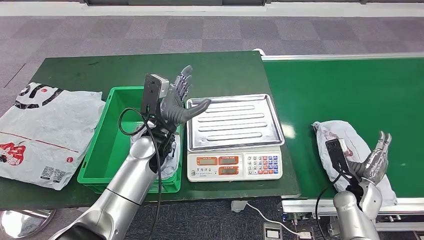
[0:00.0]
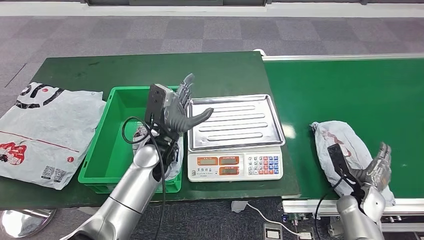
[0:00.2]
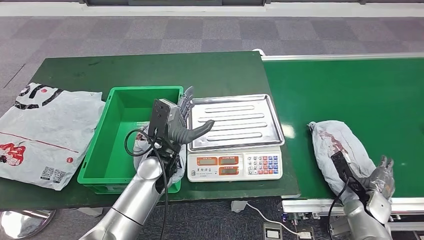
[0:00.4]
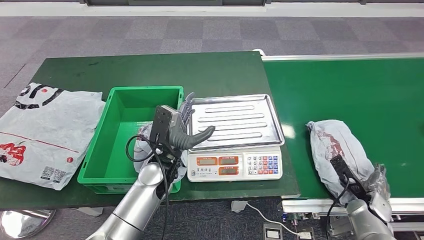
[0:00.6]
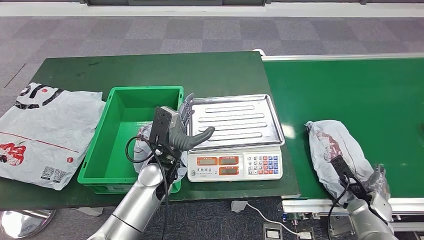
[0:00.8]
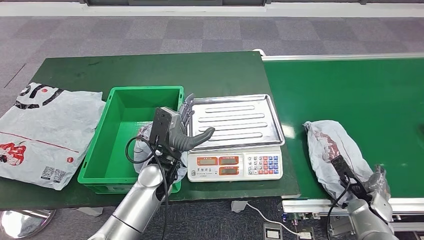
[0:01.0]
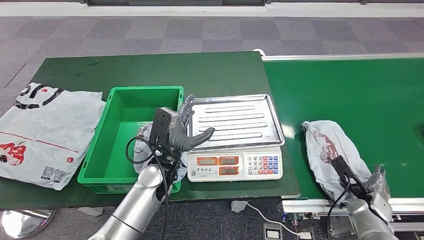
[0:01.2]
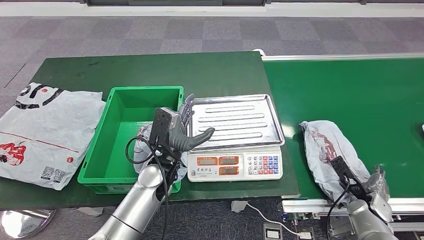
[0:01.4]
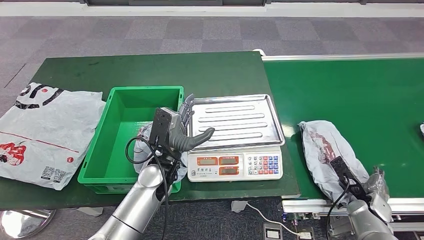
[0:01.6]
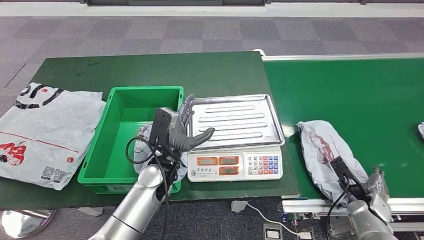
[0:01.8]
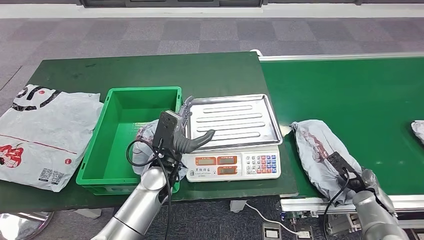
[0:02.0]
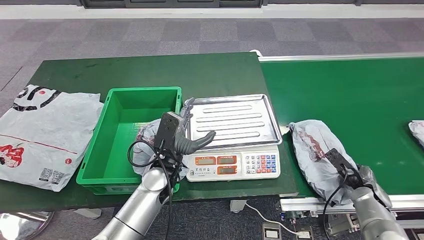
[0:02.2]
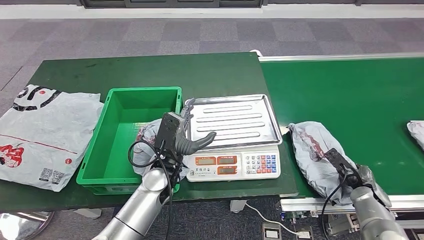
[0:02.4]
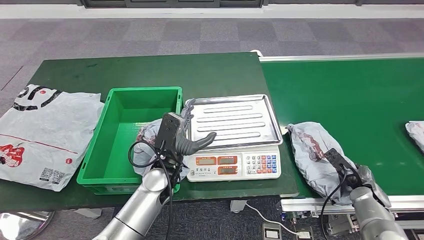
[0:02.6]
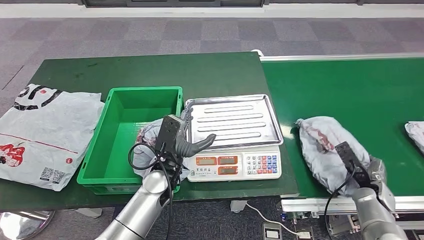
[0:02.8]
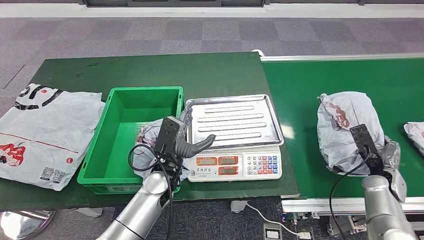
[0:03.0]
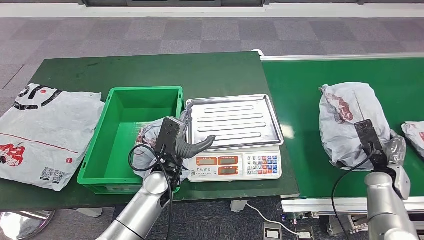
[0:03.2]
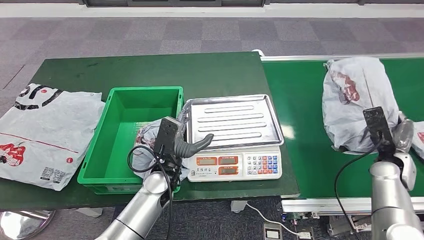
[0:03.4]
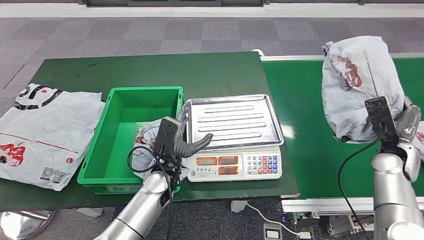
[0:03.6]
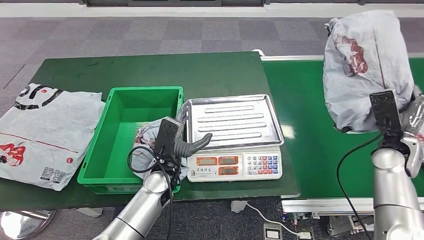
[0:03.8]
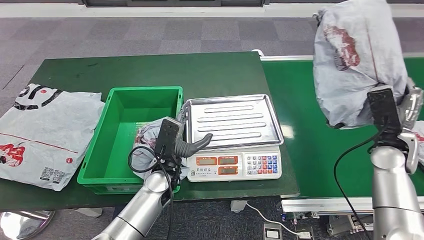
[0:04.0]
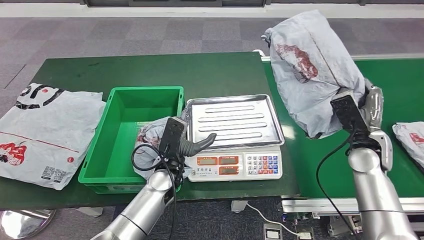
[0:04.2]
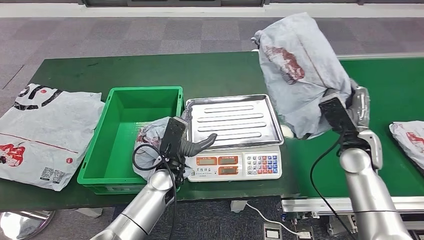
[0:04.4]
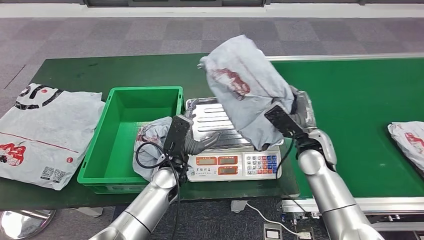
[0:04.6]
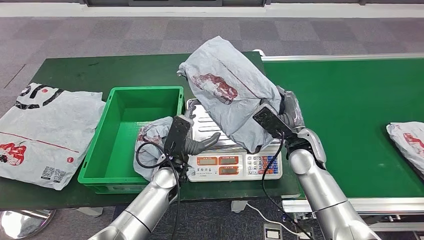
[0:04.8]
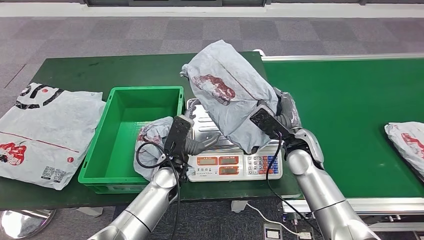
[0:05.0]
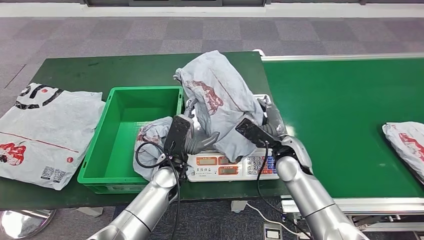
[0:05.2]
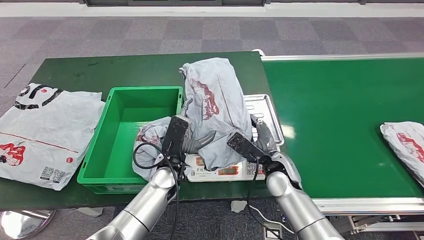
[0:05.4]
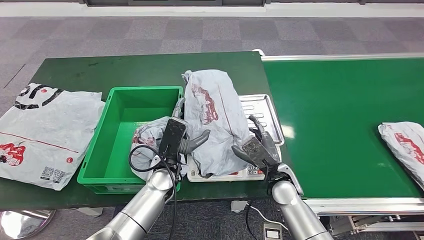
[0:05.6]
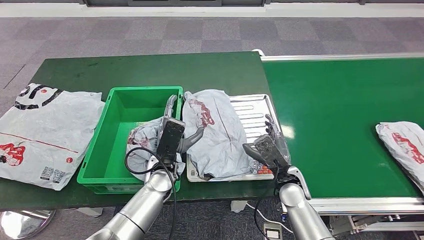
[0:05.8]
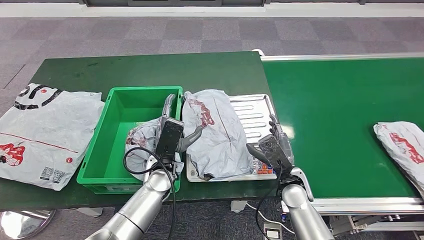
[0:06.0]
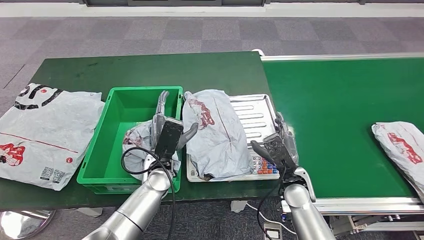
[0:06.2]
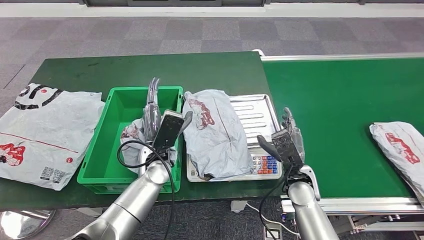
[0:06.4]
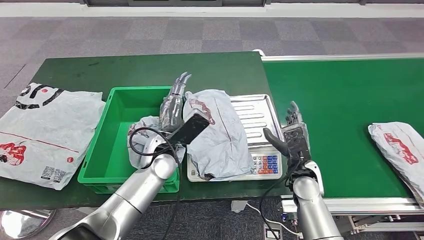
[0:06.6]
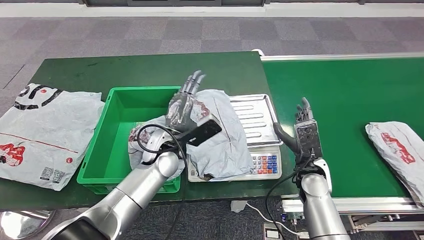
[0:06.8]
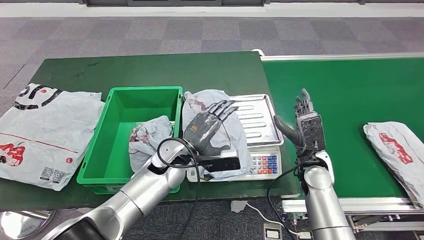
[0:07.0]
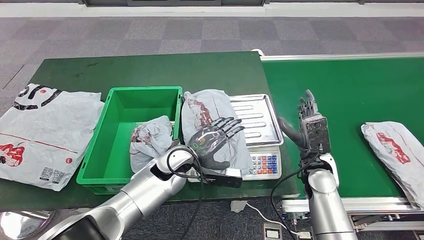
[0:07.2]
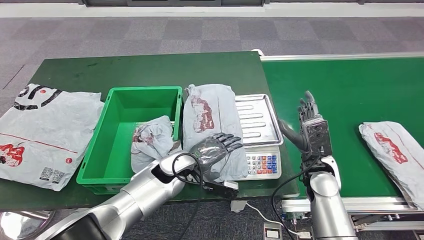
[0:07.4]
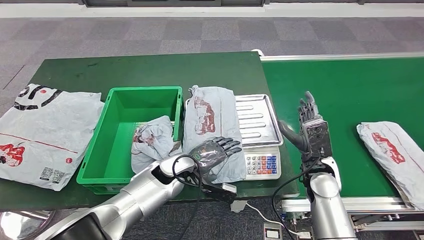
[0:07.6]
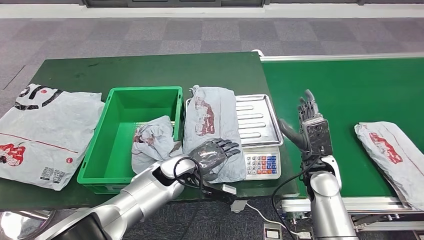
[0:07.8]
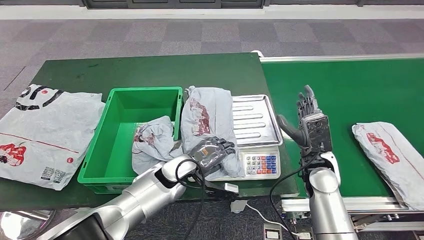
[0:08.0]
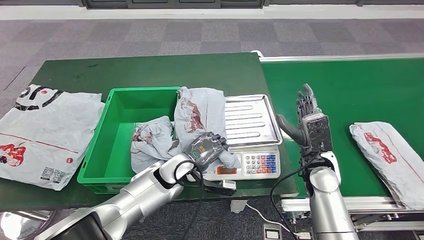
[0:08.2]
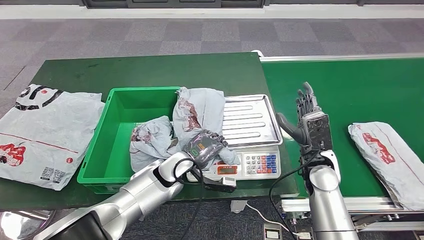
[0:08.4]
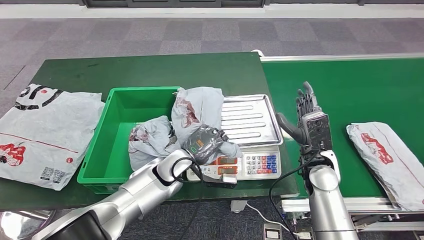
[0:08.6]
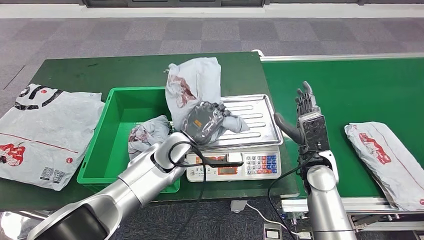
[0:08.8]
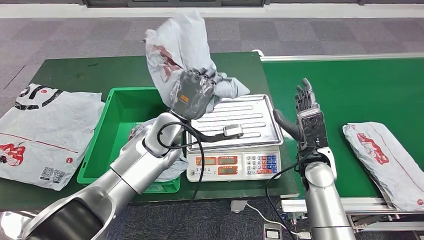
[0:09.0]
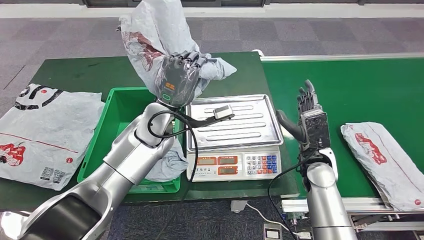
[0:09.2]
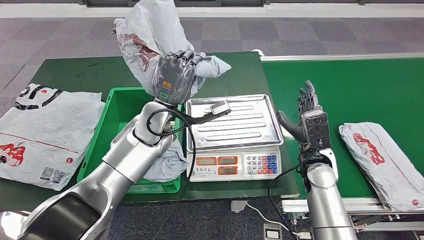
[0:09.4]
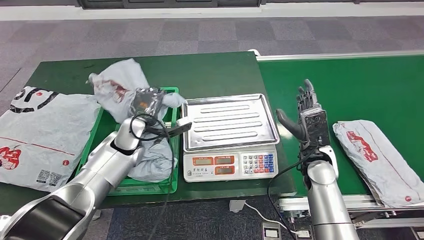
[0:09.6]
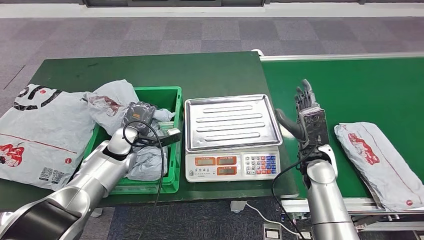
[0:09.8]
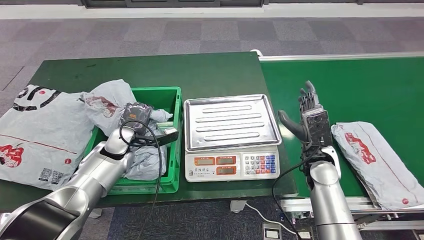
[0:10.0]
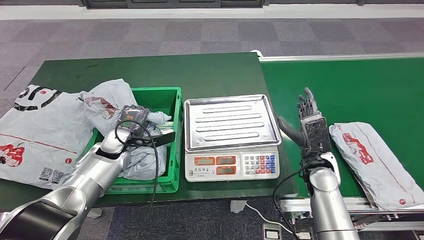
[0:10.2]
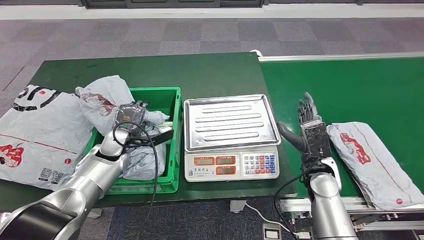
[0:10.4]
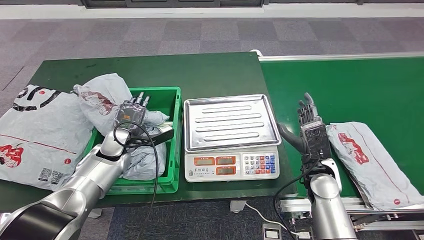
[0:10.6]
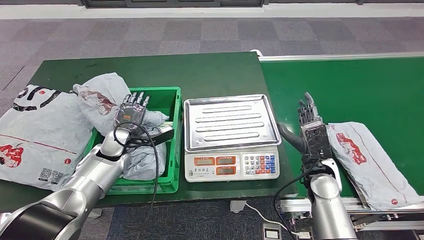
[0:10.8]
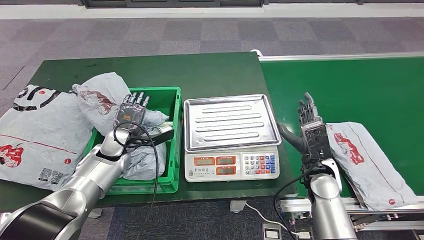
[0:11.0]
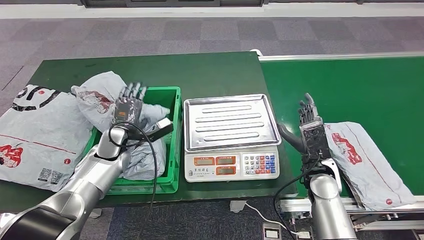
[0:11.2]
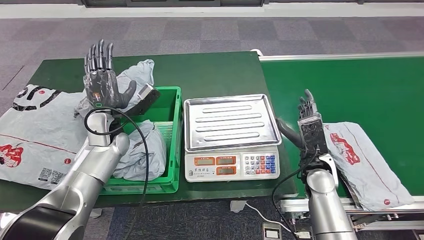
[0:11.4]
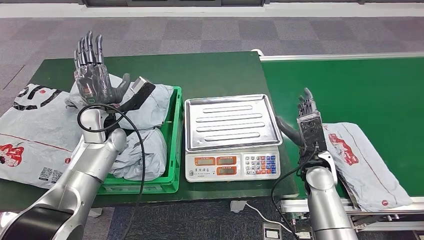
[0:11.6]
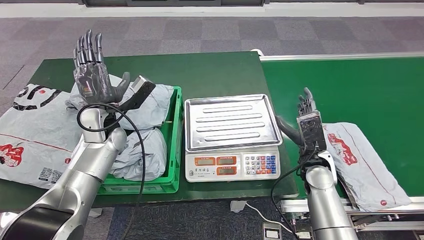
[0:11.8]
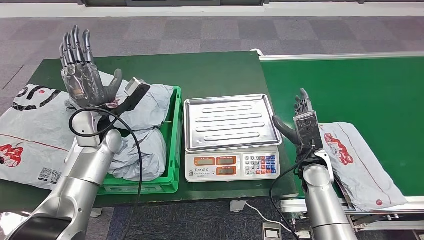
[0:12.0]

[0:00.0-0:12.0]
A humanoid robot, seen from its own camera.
Step, 0:02.8 to 0:04.8: Pick up the parcel from the conveyor belt.
Step, 0:05.0 to 0:07.4: Place the parcel onto the inbound machine.
Step, 0:07.8 to 0:09.8: Pick up the parcel from the inbound machine.
0:00.0 to 0:01.6: The left hand moves downward, about 5 cm. Meanwhile the right hand travels to the right by roughly 5 cm.
0:01.6 to 0:03.0: The right hand travels upward by about 5 cm.

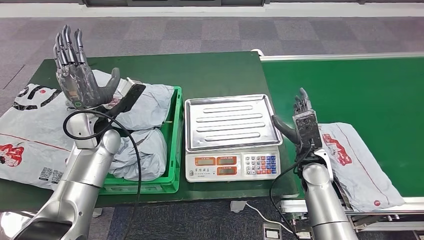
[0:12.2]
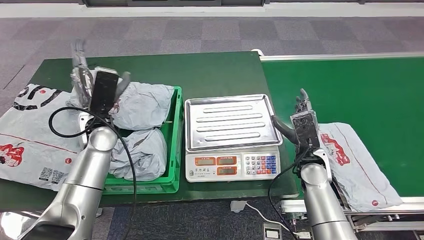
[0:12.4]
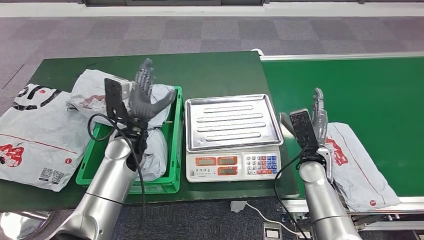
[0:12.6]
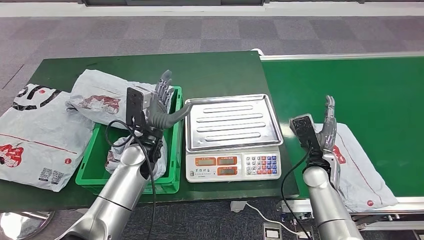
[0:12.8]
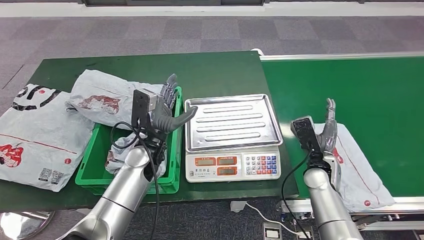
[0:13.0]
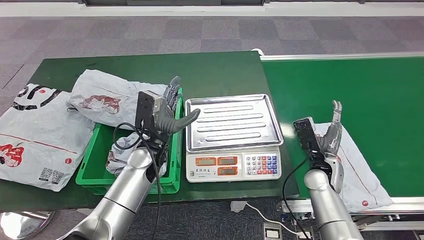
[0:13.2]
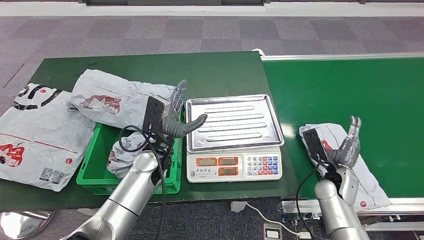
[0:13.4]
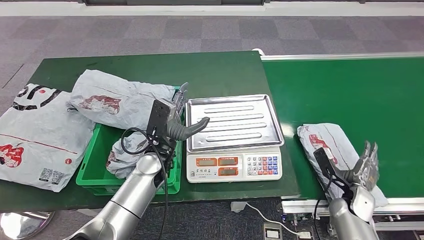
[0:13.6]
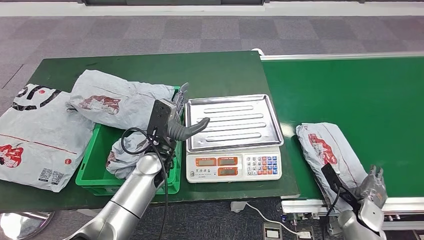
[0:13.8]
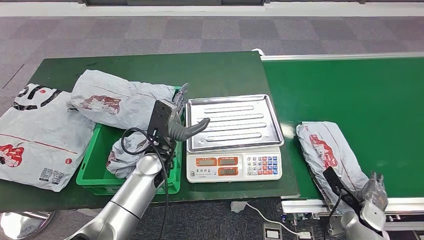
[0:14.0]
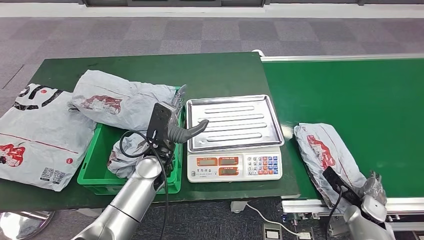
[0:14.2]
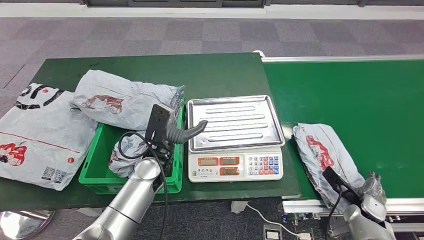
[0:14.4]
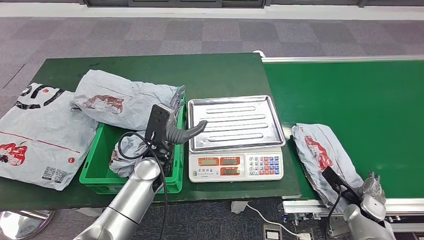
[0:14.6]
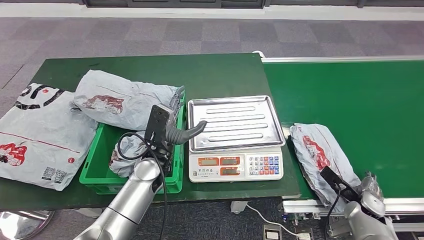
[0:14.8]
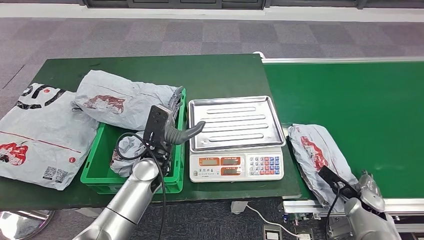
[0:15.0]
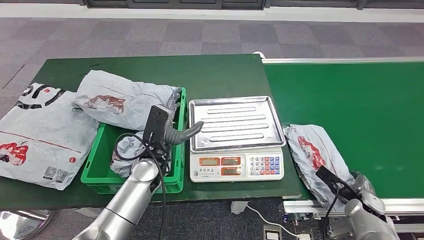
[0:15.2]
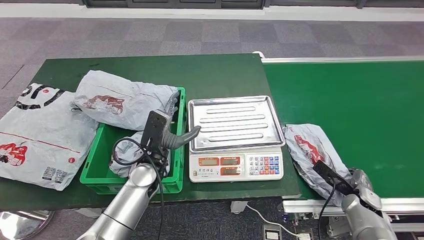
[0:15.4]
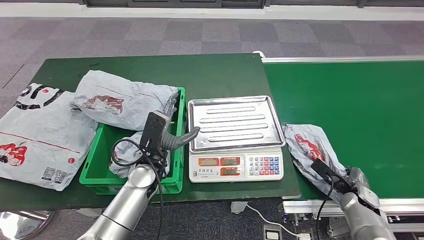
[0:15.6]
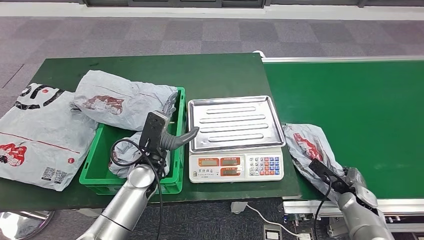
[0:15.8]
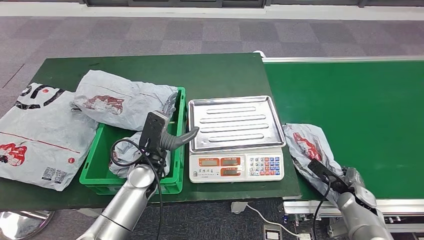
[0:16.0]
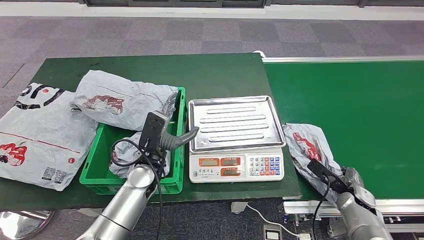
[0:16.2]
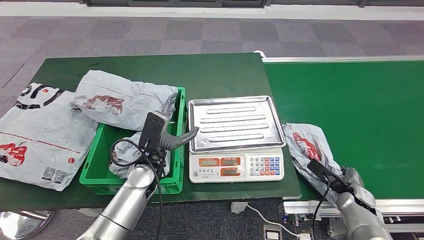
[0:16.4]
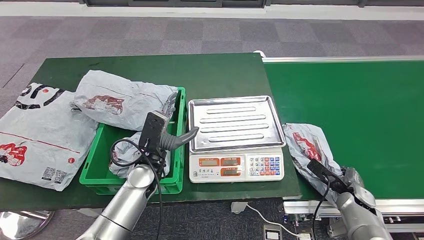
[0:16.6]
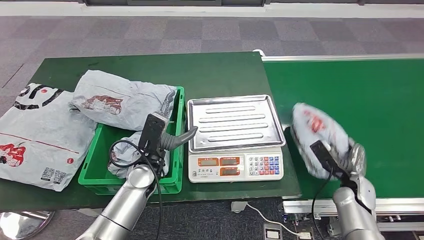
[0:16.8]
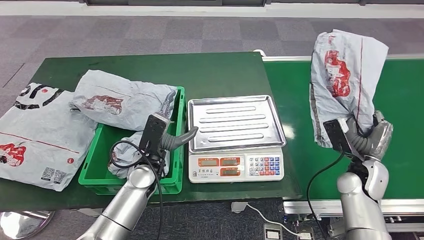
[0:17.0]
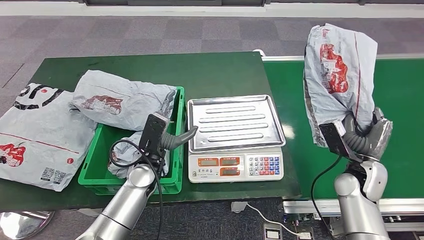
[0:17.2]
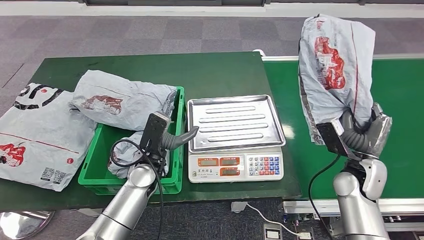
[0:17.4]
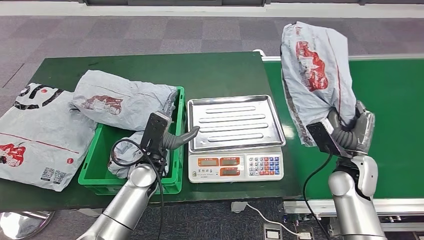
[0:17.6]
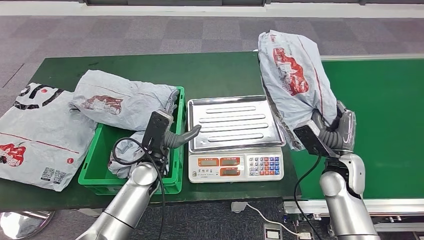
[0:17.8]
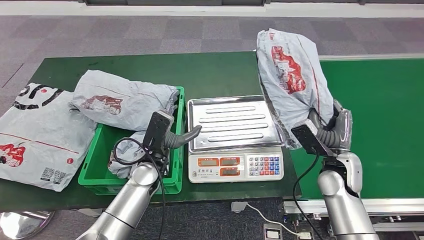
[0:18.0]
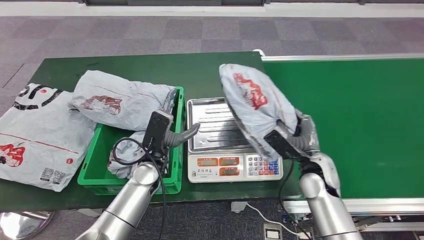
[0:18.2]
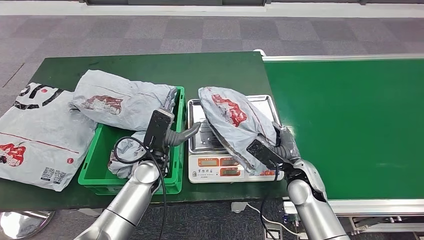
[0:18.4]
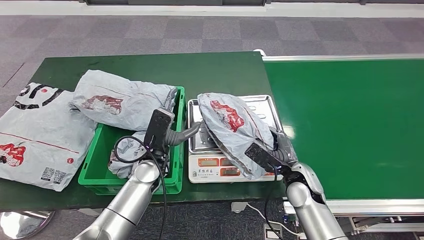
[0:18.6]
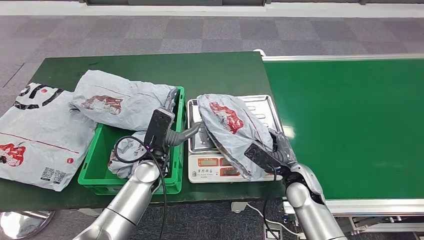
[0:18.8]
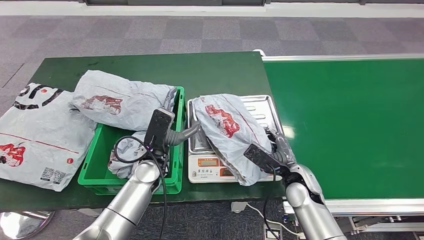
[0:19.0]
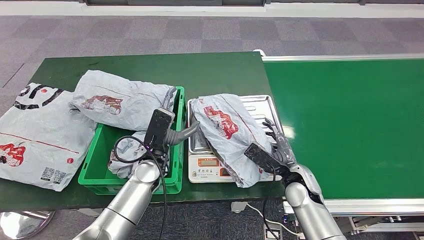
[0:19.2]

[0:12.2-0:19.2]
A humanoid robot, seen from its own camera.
Step, 0:16.4 to 0:17.8: Pick up the parcel from the conveyor belt.
0:15.0 to 0:16.4: The hands stay close to where they were, moving slightly.
